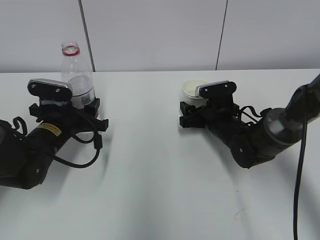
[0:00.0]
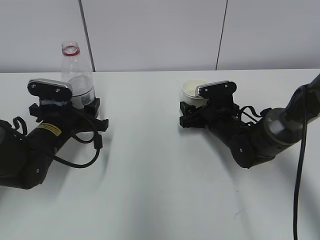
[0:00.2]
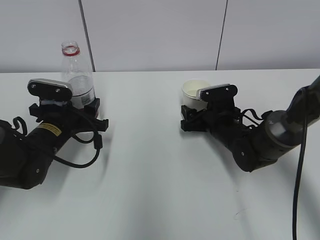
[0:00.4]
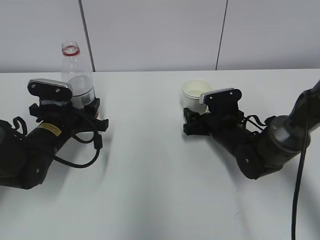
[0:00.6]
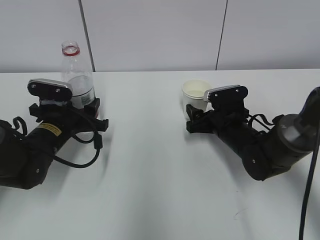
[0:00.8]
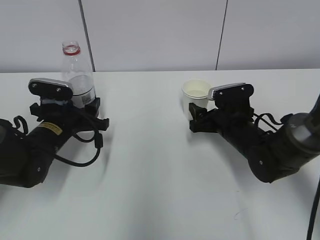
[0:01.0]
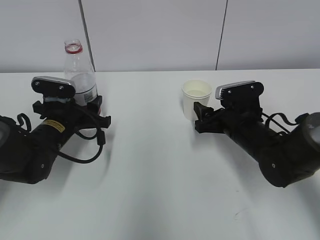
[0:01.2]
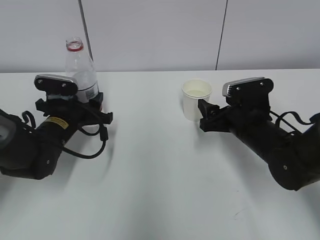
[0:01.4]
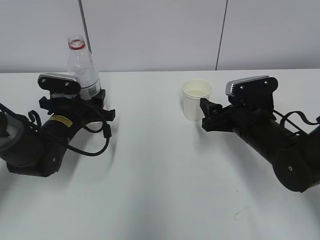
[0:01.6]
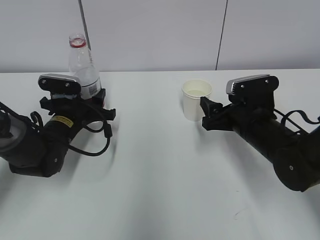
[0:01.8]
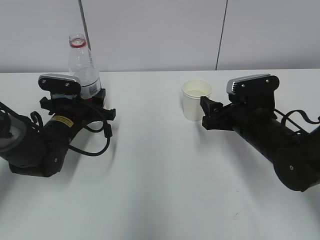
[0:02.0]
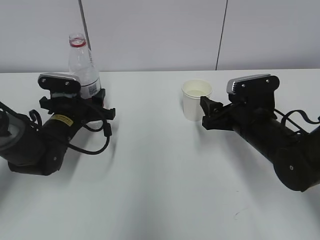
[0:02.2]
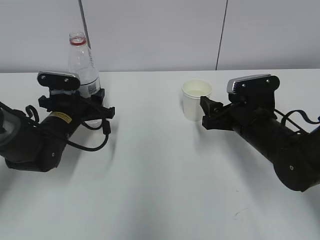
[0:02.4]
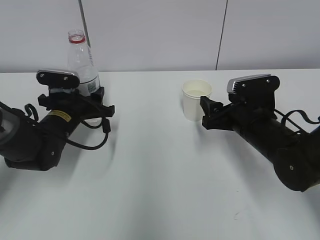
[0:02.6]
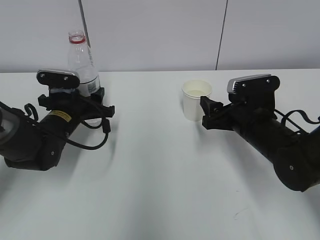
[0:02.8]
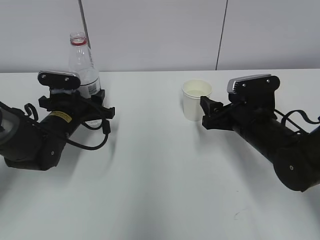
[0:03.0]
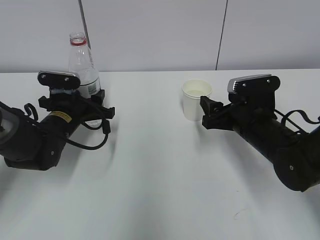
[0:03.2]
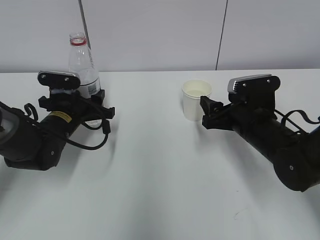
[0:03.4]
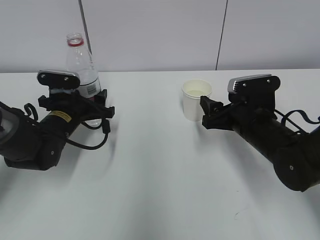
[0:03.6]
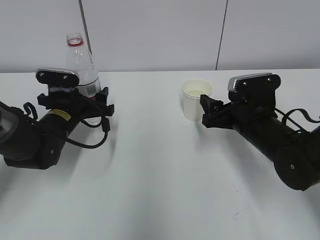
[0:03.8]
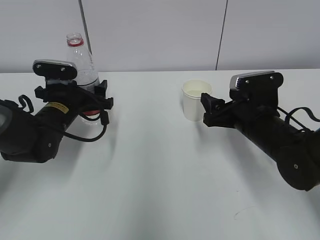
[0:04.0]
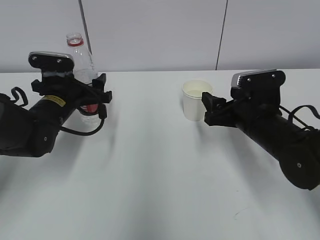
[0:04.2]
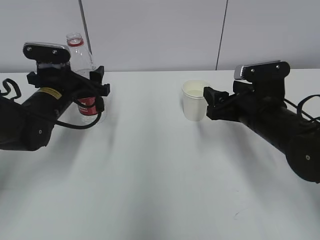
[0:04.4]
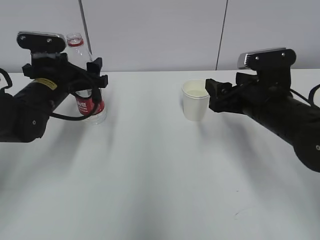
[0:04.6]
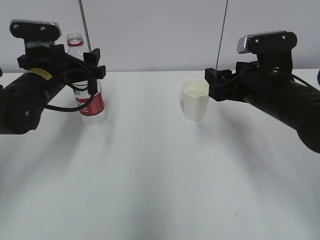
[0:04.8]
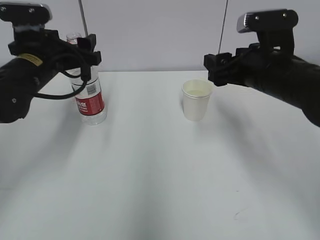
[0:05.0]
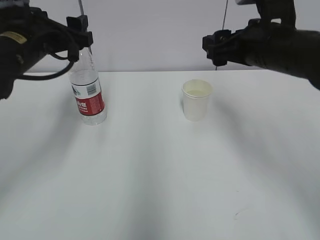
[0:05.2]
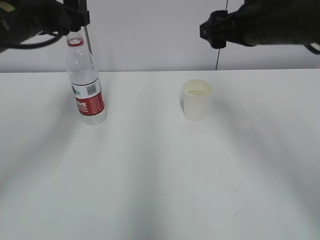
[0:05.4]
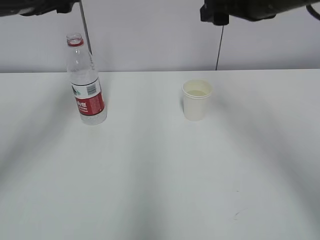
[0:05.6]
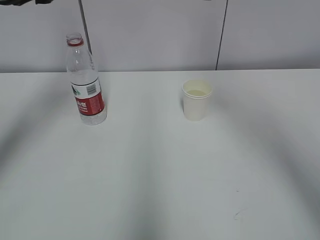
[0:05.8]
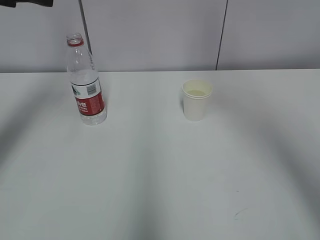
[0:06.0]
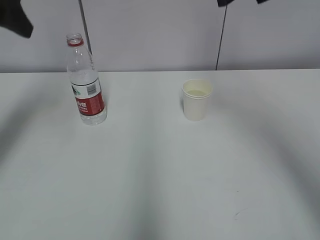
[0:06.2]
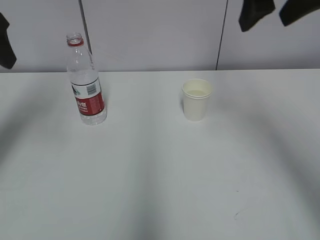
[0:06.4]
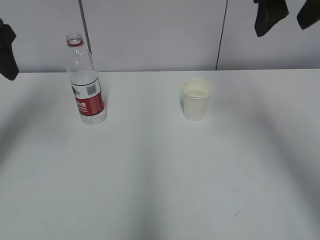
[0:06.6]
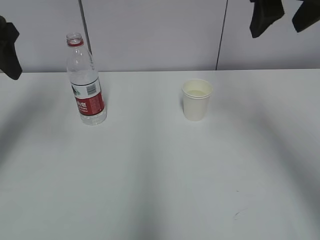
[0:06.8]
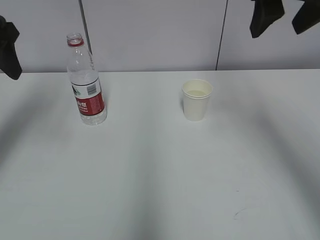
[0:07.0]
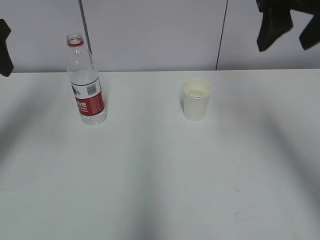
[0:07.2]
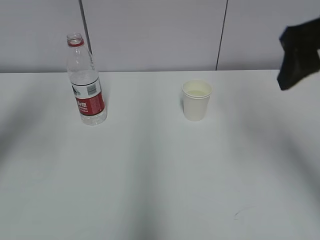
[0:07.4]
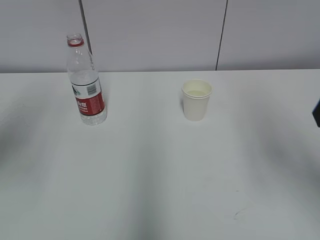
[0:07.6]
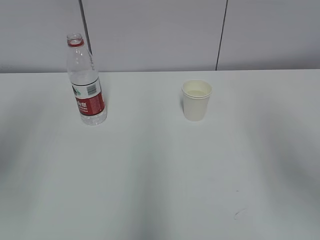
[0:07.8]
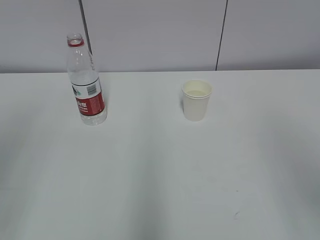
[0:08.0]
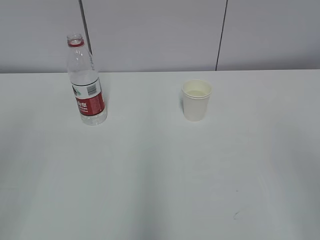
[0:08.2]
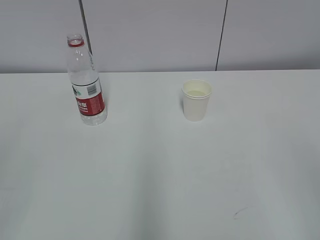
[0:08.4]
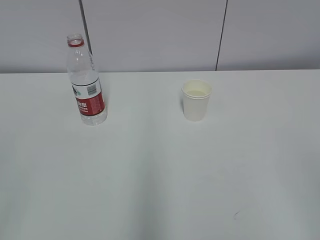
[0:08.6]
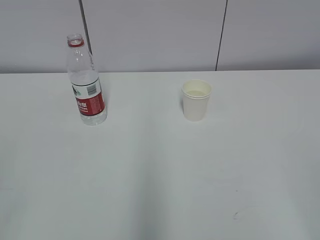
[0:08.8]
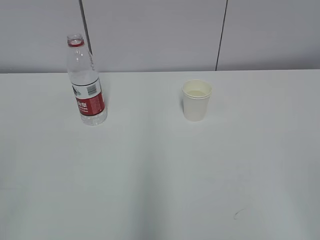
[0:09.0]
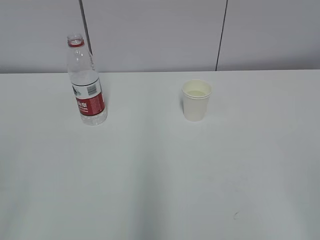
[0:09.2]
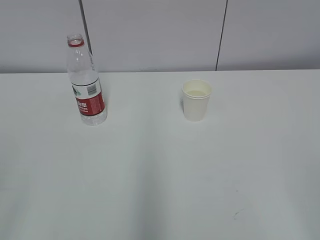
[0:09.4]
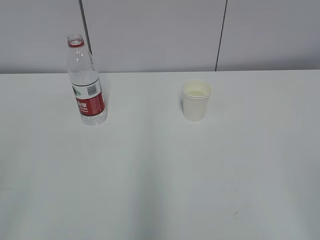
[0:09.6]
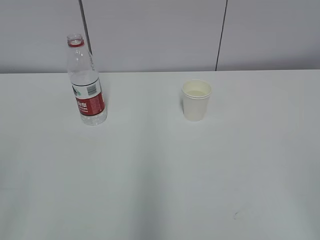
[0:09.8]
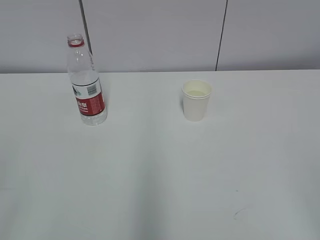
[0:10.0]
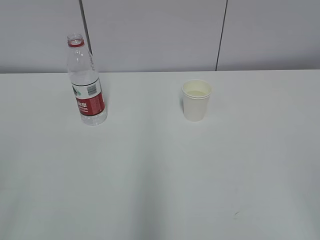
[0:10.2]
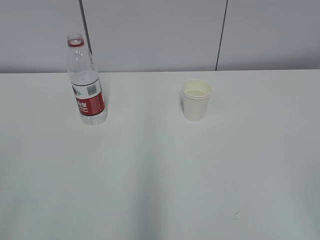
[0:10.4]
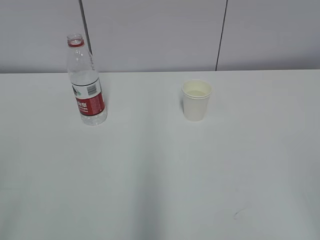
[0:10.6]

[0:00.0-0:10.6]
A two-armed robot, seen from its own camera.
0:00.0 to 0:01.6: The right gripper goes roughly 10 cm backward and upward.
0:01.6 to 0:03.0: Neither gripper changes place.
0:03.0 to 0:04.6: The grippers both shift upward by roughly 5 cm. The left gripper opens up.
0:04.6 to 0:06.0: Both grippers travel together upward, roughly 20 cm.
0:06.0 to 0:07.6: The left gripper goes roughly 15 cm backward. The right gripper goes some 15 cm backward, downward and to the right.
0:07.6 to 0:09.0: The grippers both shift backward by approximately 20 cm.

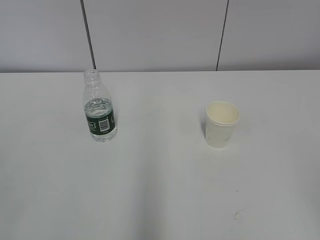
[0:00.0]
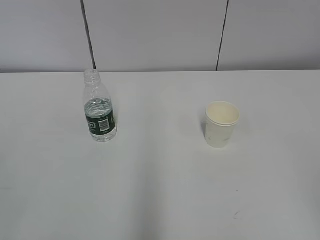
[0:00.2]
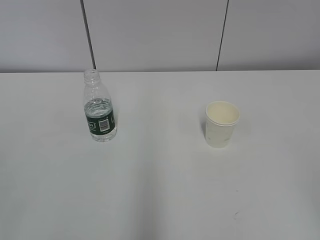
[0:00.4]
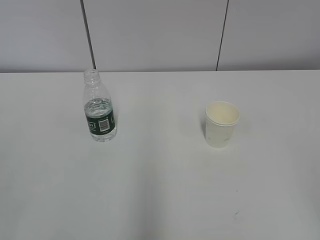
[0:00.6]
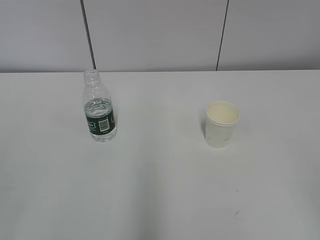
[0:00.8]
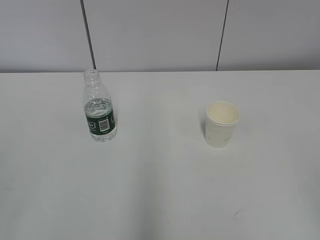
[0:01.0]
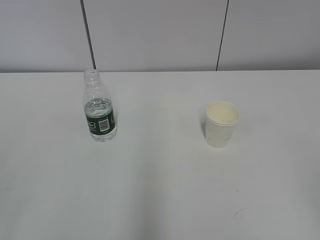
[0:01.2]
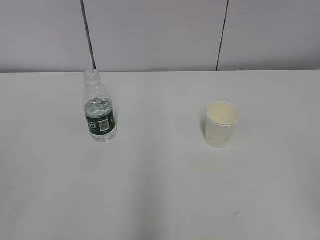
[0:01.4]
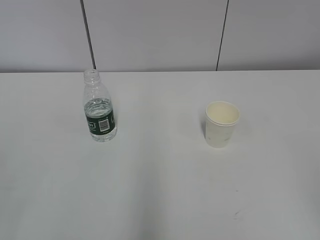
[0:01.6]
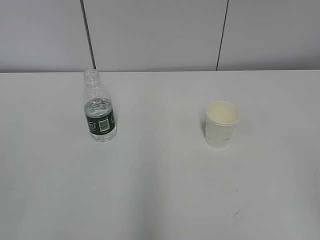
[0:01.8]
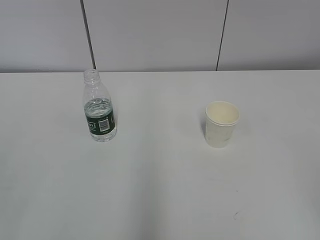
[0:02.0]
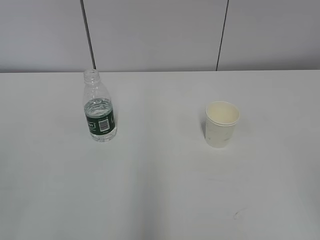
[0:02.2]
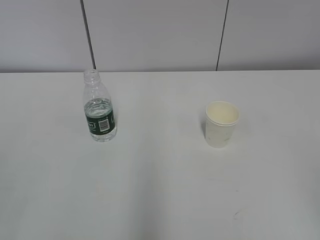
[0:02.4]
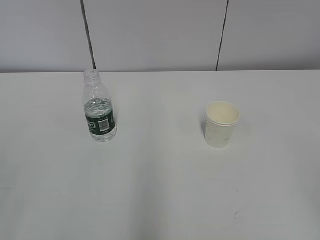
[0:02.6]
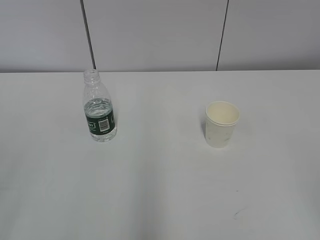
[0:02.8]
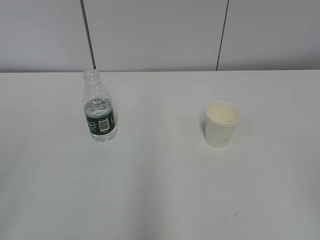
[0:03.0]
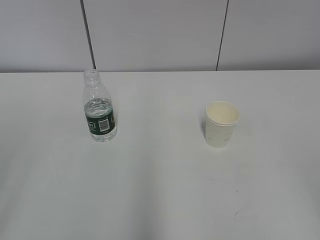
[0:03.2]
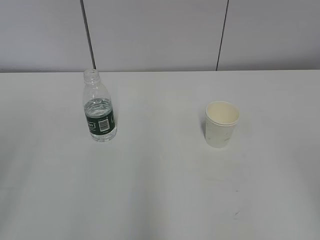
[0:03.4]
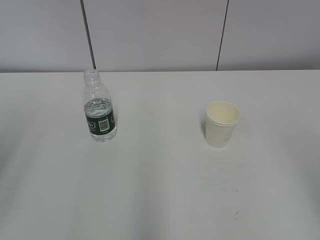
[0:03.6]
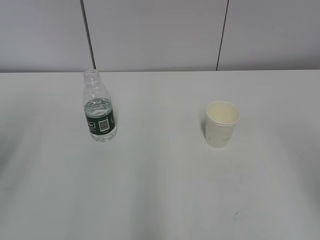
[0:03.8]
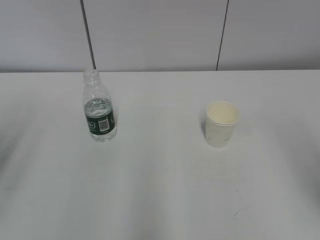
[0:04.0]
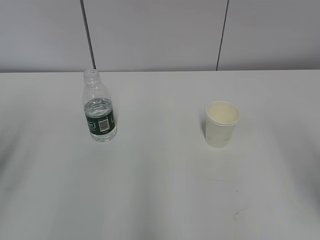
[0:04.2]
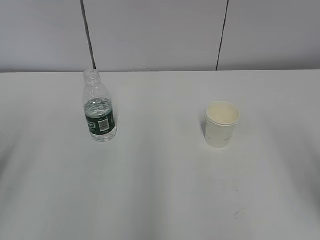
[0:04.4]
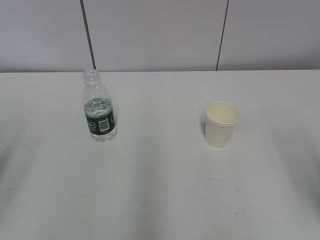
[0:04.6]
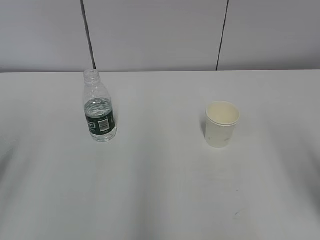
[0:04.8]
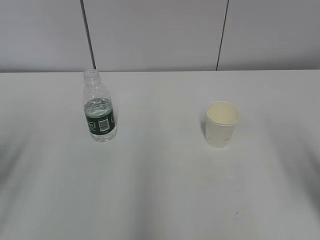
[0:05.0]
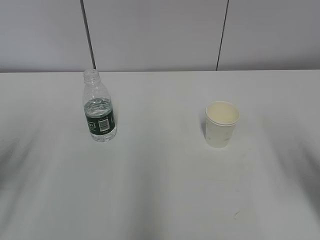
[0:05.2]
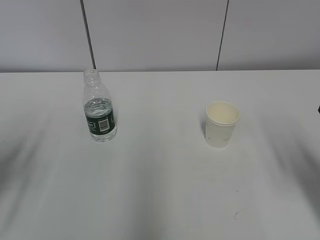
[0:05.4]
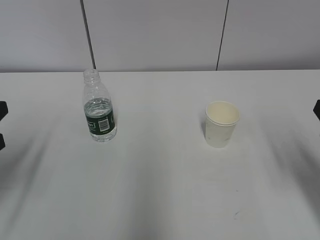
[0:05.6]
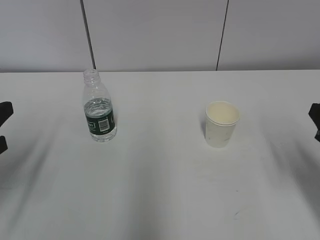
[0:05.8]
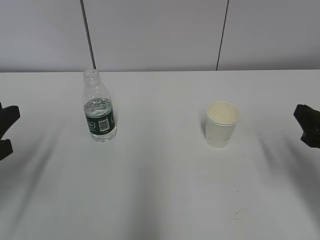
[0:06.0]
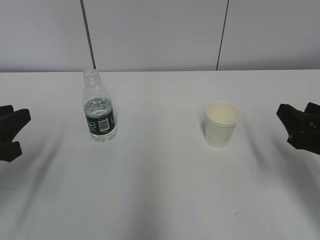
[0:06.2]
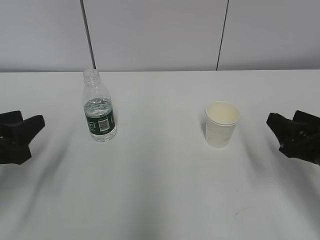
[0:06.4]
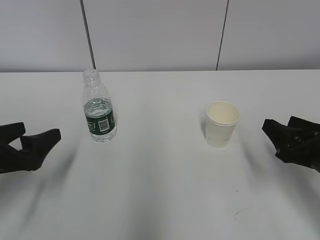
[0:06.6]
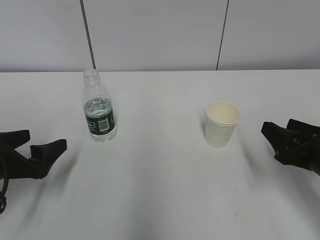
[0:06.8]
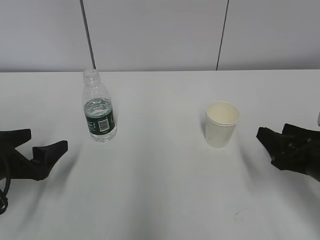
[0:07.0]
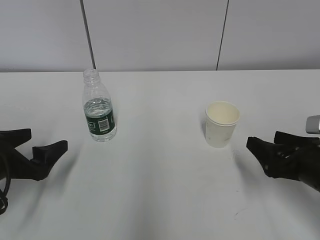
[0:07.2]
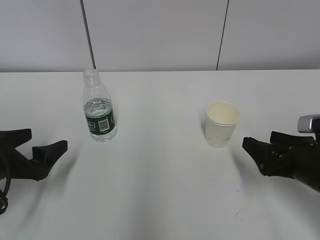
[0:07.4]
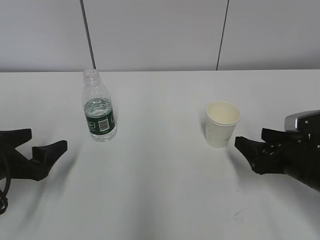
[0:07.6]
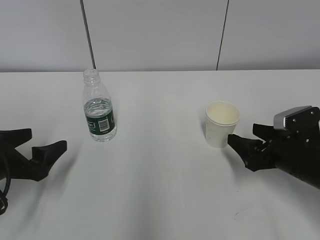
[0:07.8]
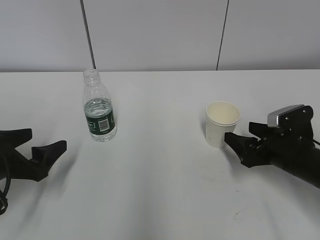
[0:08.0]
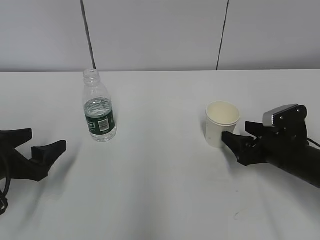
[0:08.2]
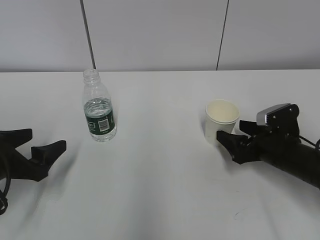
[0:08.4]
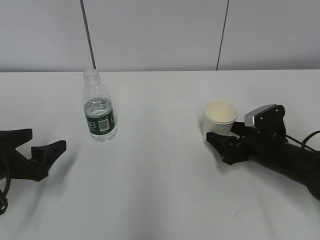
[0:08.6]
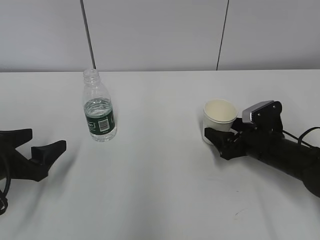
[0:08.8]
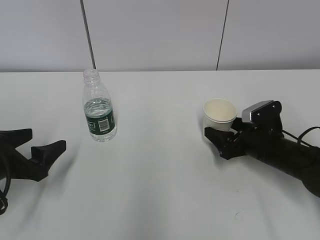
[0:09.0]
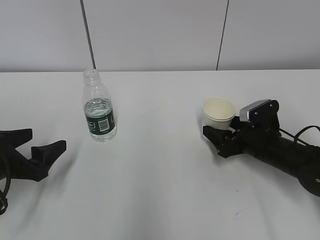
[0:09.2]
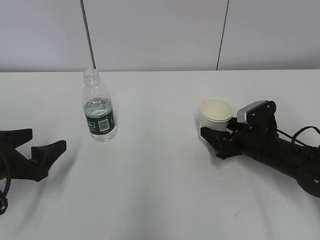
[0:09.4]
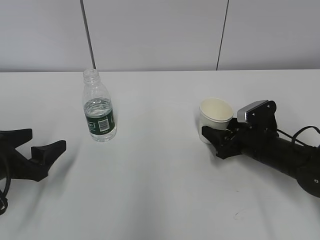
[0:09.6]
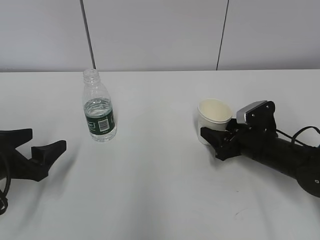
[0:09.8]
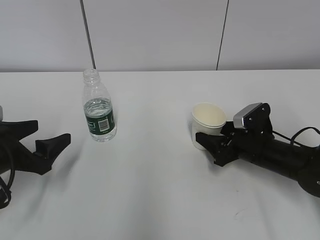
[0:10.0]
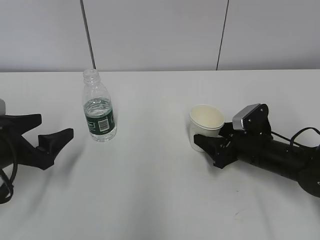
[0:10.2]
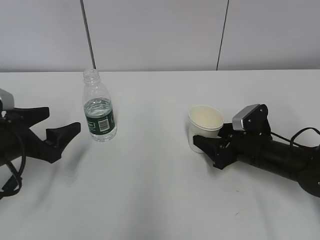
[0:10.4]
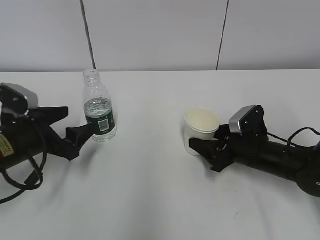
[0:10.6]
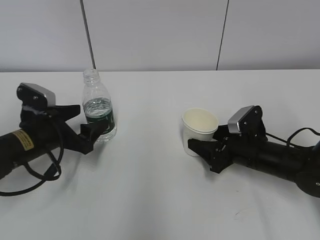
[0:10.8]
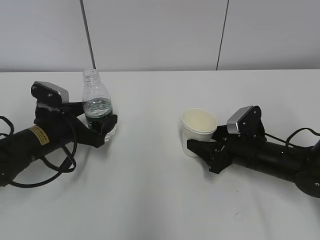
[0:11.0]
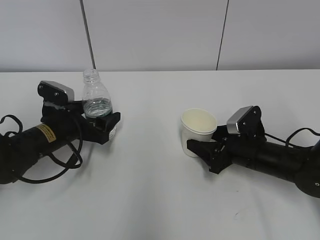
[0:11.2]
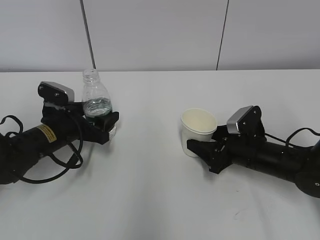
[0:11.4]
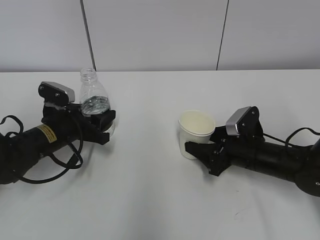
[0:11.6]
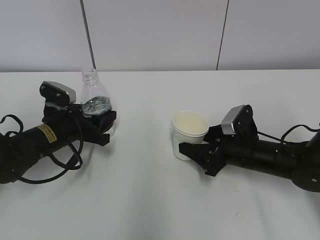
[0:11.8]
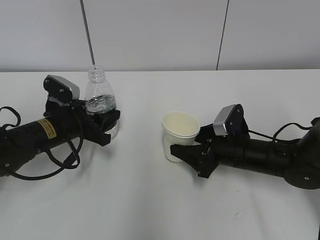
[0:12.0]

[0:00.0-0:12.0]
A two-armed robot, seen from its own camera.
Step, 0:00.0 to 0:09.4: Grab the paper cup with the right hand.
0:04.4 to 0:06.0: The left gripper goes approximately 5 cm downward, while the right gripper shifts roughly 15 cm forward and downward.
0:06.0 to 0:07.6: Both grippers travel together downward, some 10 cm. The left gripper opens its fingers. Meanwhile the right gripper opens up.
0:07.6 to 0:09.0: The right gripper moves forward, approximately 10 cm.
0:09.0 to 0:10.4: The right gripper closes.
0:10.4 to 0:12.0: The left gripper moves forward and to the right, some 10 cm, and closes its fingers.
